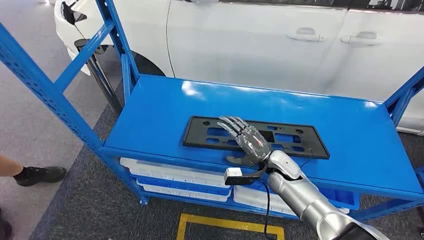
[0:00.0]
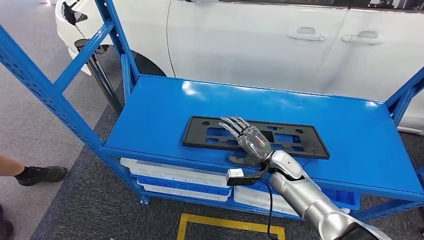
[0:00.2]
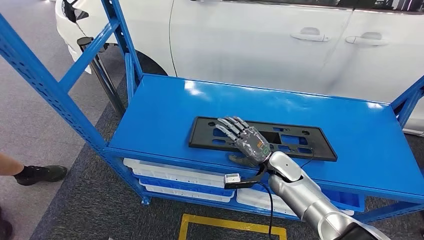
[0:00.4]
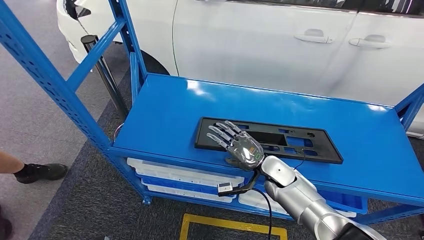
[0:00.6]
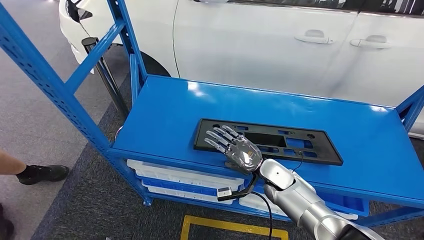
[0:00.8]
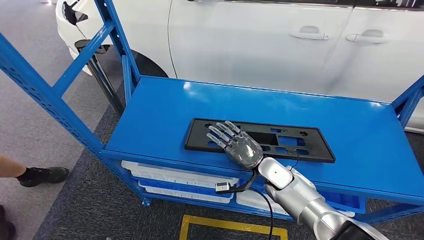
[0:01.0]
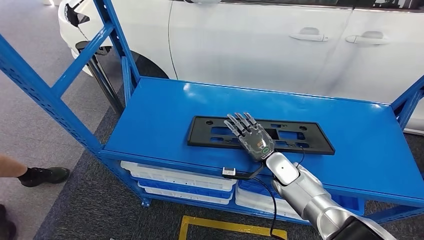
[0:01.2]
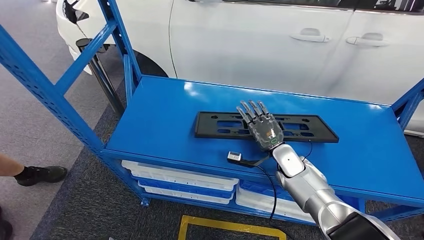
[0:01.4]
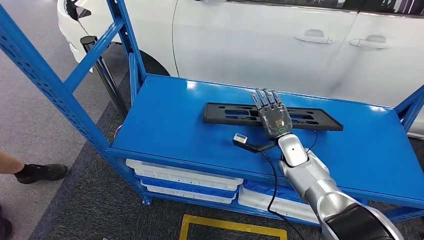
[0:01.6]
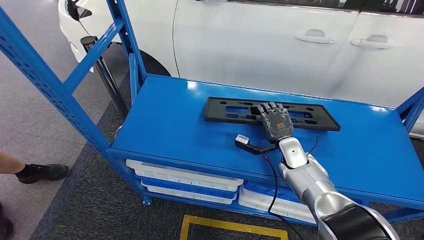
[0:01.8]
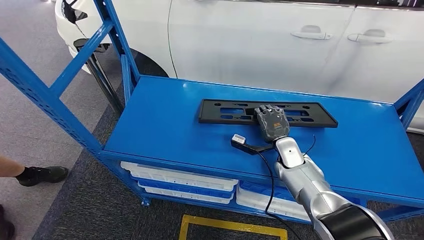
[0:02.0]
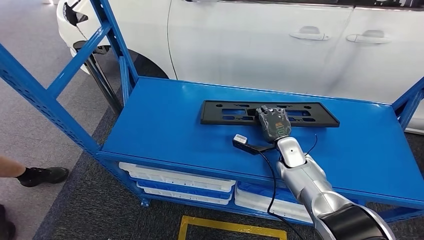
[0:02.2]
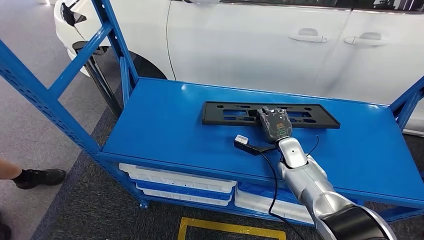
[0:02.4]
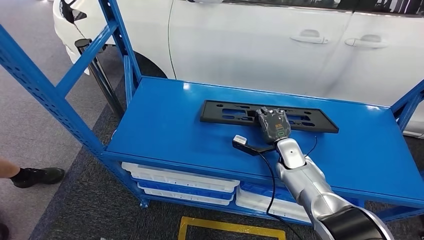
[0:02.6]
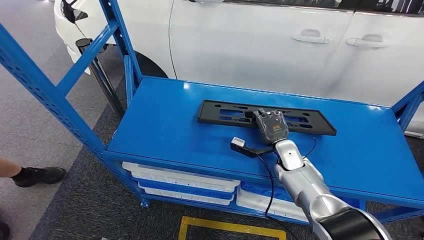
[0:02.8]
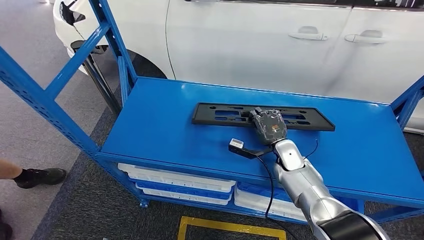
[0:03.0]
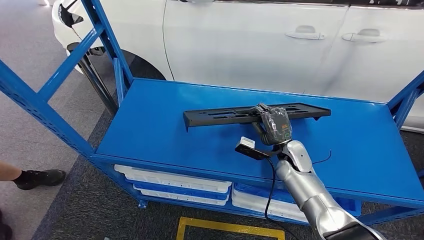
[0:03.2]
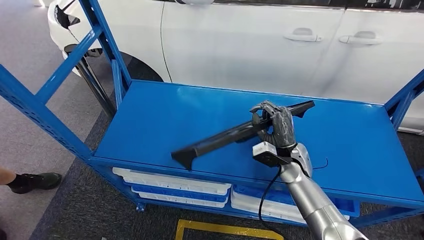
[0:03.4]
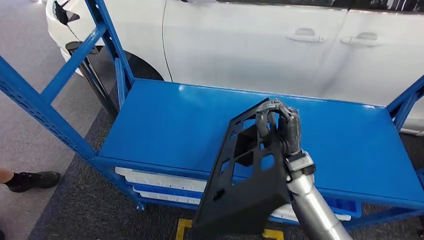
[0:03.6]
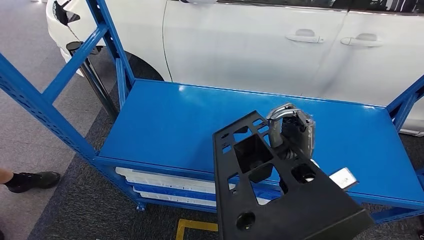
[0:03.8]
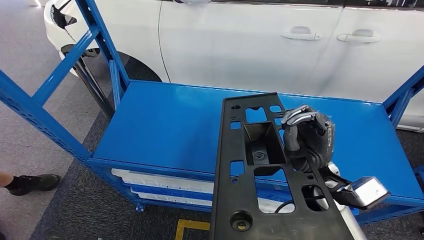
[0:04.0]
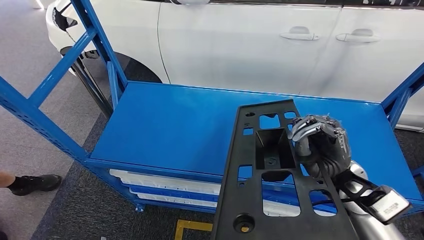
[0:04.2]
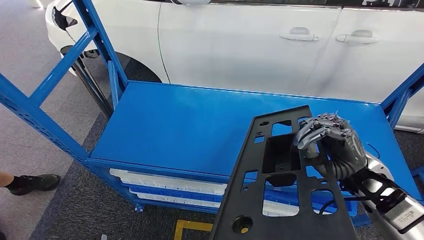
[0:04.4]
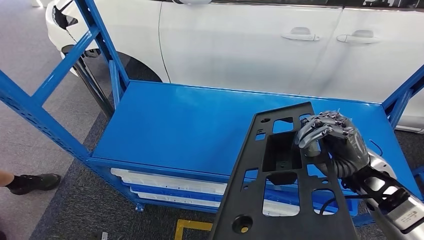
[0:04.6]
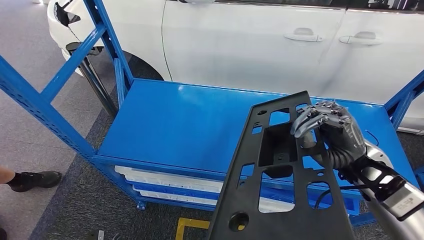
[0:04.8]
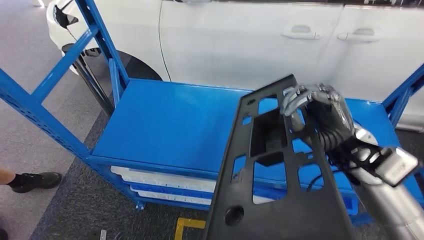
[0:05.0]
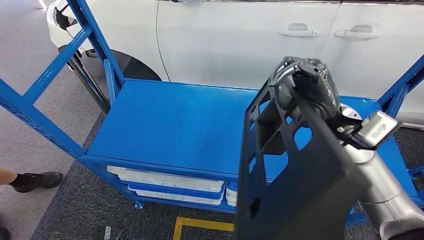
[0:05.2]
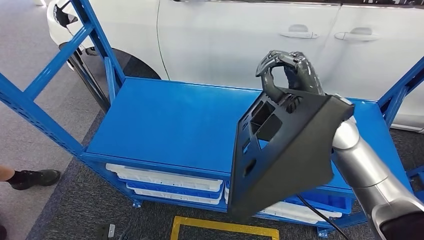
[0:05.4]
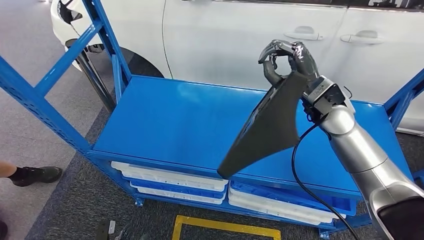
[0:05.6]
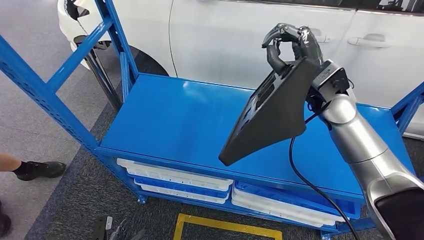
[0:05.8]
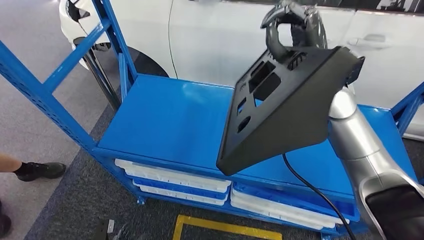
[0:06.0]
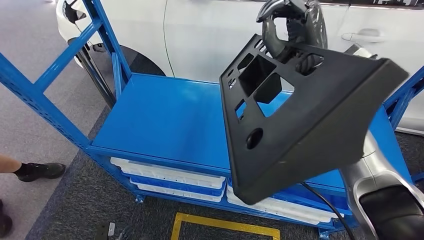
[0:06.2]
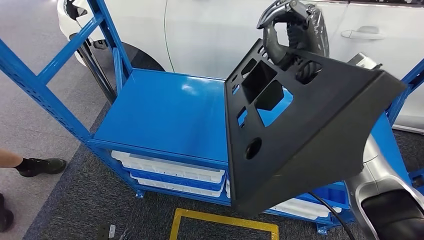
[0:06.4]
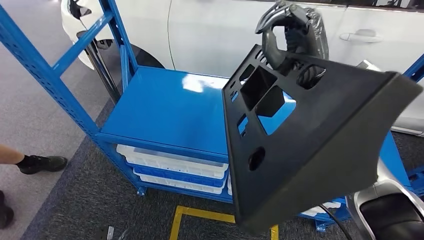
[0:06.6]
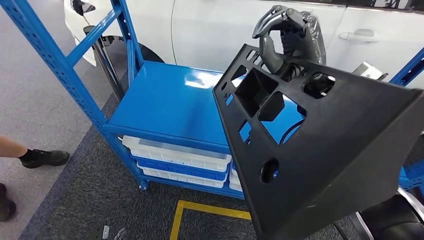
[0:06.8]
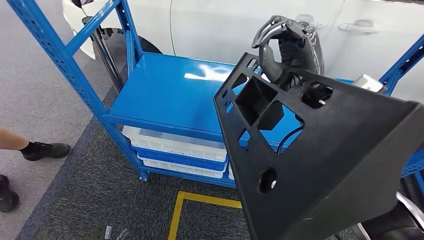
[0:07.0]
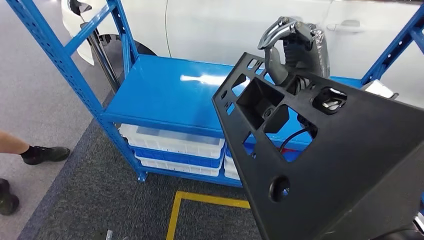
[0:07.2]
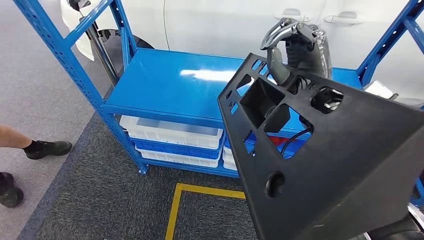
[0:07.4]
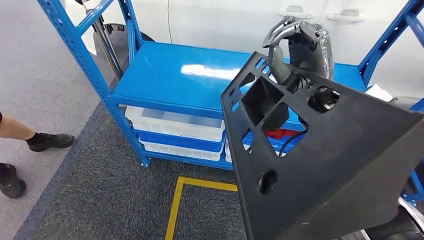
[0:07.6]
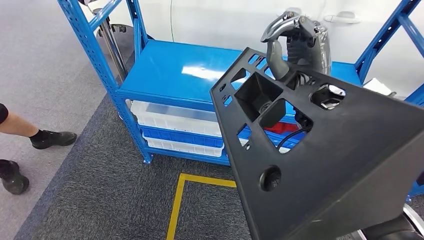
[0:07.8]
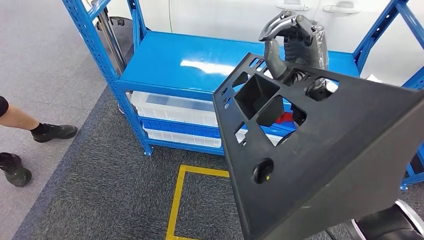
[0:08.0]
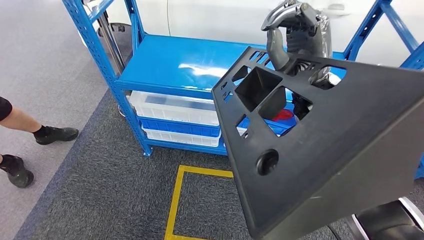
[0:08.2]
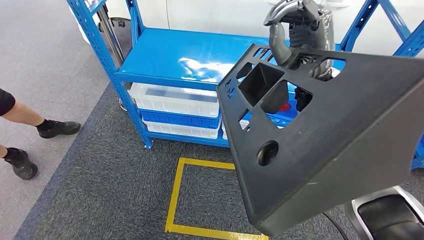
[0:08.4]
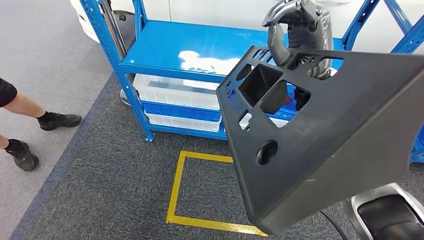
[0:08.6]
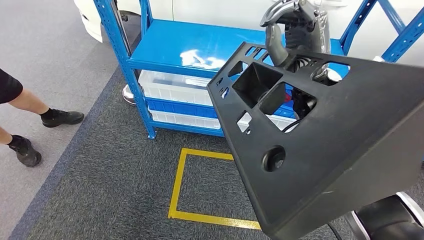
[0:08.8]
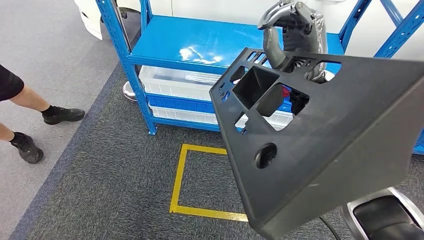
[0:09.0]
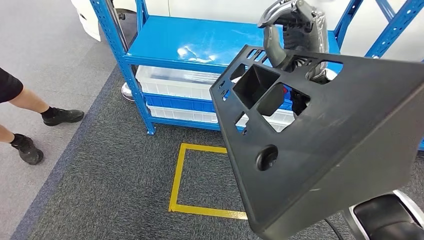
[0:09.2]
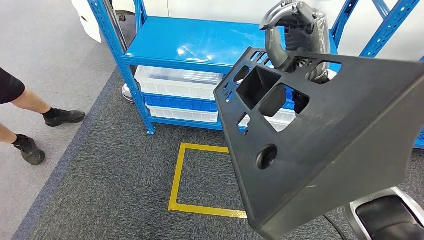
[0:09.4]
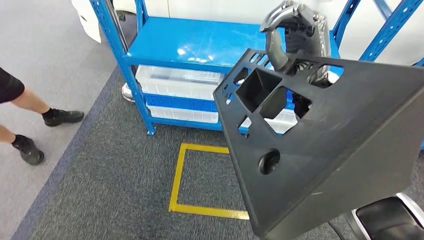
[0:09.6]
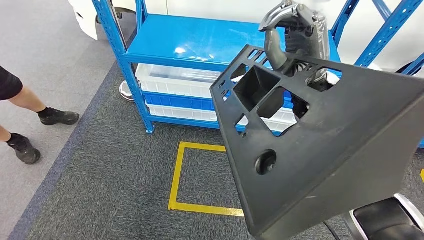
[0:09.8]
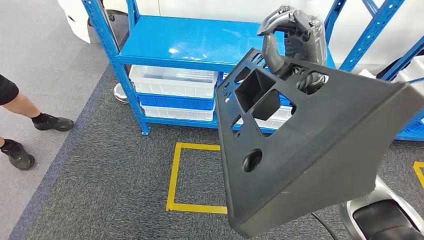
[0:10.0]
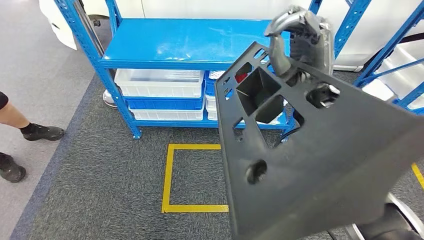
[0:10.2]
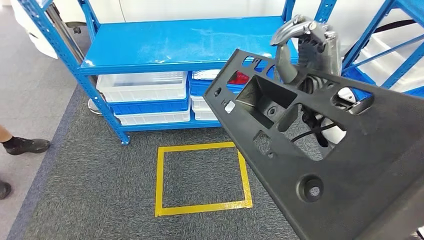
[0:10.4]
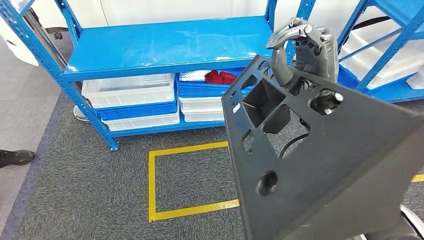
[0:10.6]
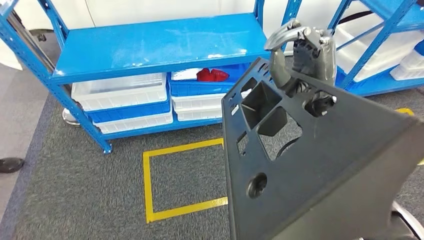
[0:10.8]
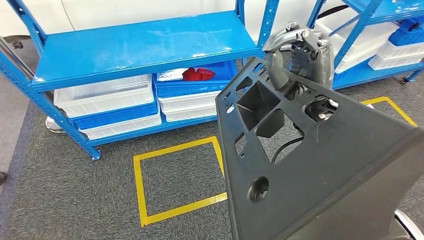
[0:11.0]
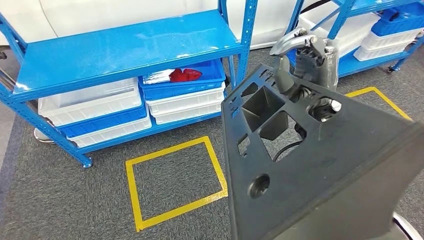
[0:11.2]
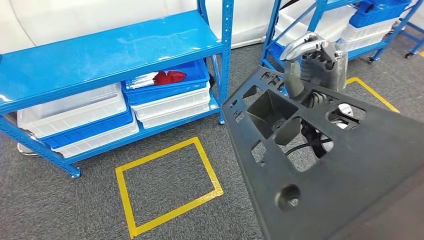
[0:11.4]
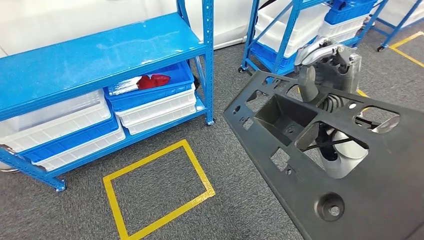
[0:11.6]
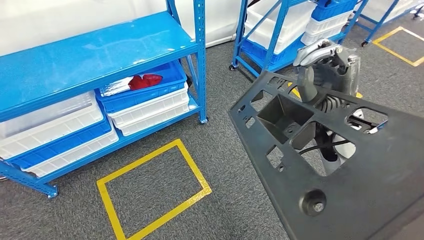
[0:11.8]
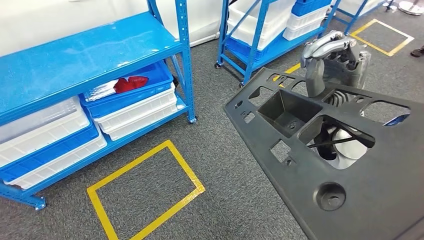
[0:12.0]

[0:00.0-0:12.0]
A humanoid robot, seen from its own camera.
Step, 0:00.0 to 0:06.0: Pick up the large material from the shelf.

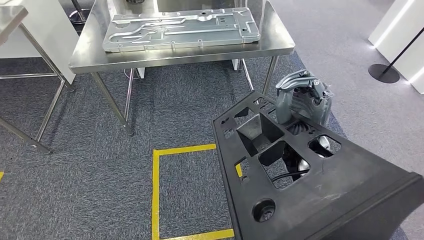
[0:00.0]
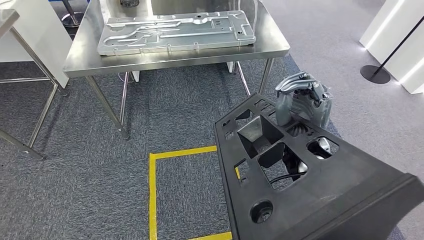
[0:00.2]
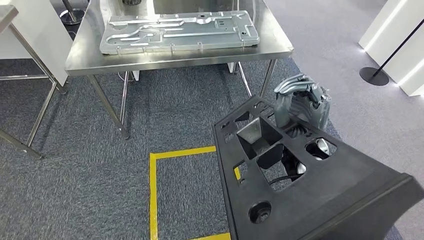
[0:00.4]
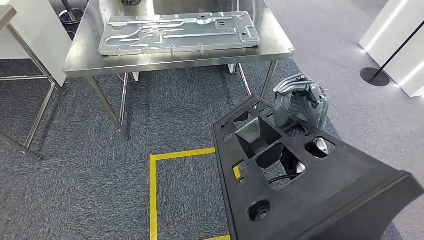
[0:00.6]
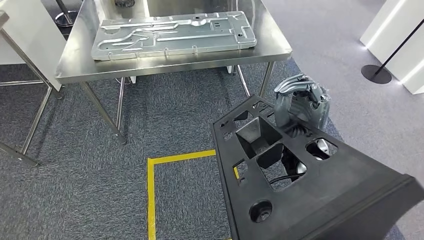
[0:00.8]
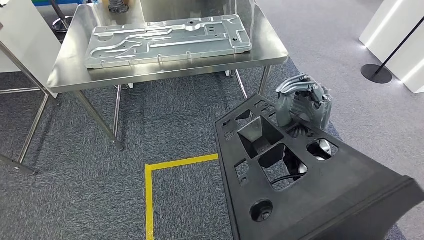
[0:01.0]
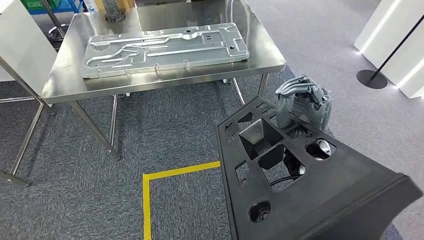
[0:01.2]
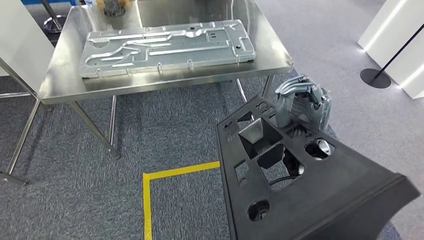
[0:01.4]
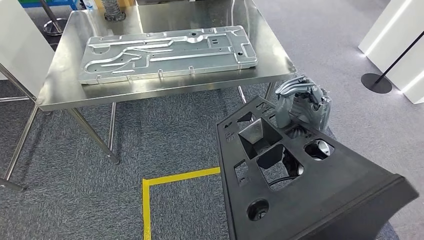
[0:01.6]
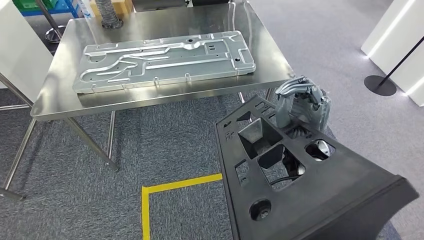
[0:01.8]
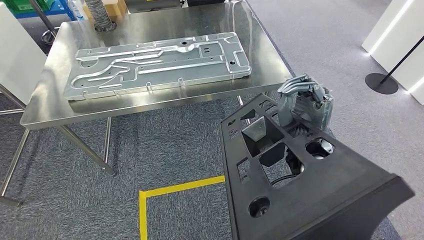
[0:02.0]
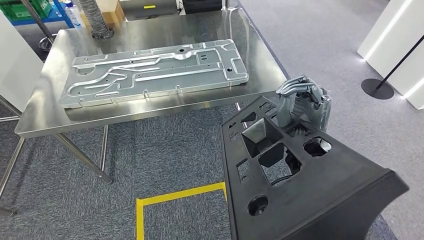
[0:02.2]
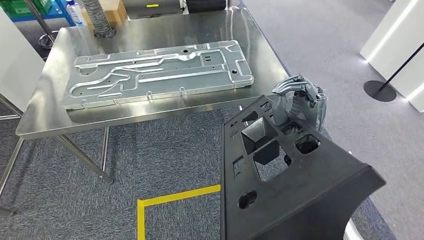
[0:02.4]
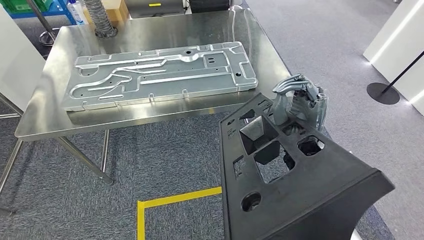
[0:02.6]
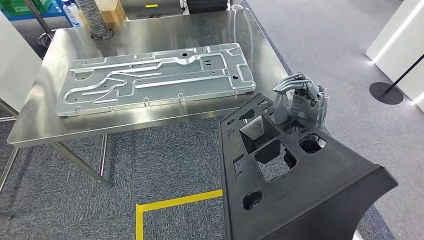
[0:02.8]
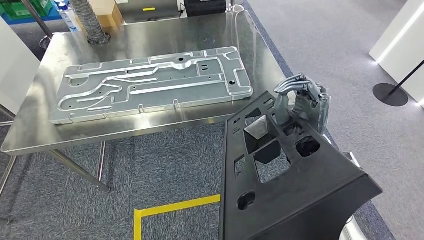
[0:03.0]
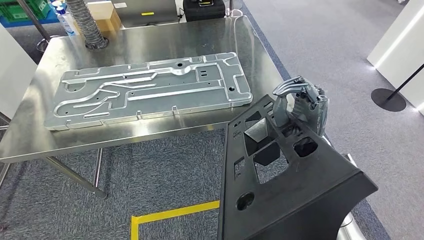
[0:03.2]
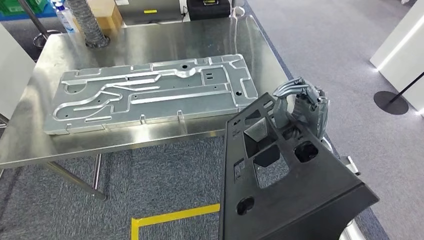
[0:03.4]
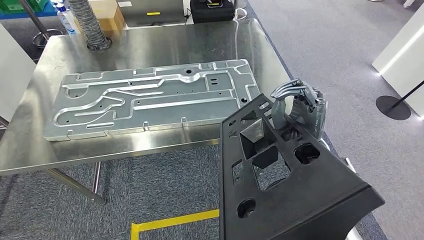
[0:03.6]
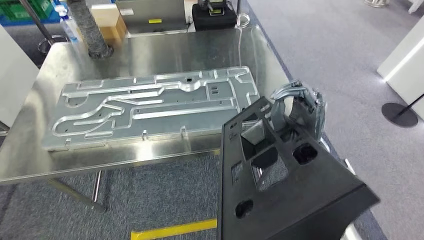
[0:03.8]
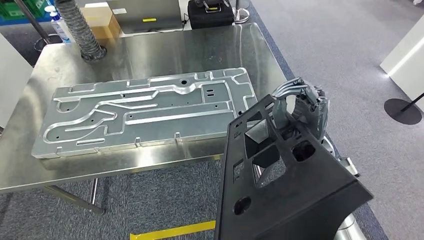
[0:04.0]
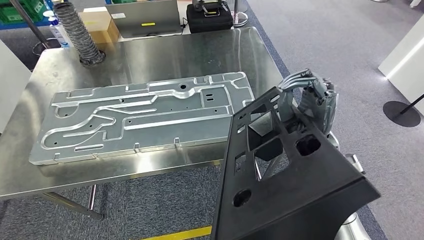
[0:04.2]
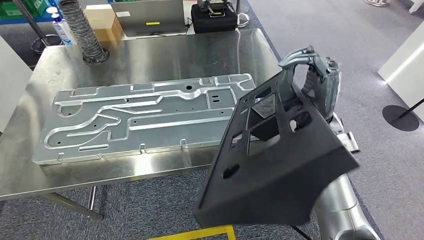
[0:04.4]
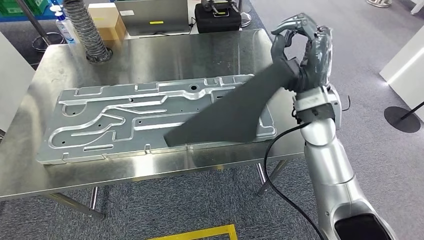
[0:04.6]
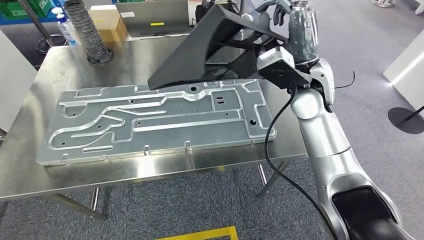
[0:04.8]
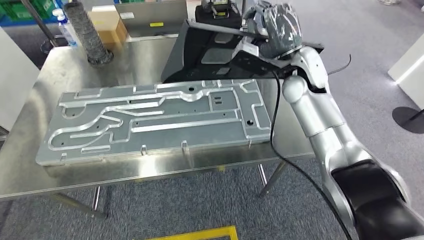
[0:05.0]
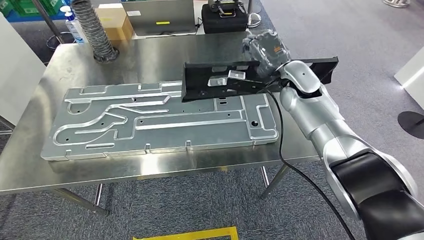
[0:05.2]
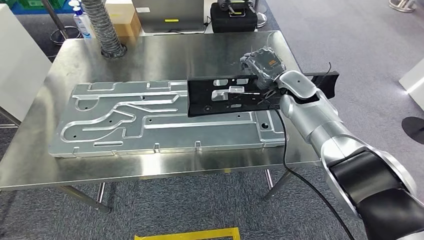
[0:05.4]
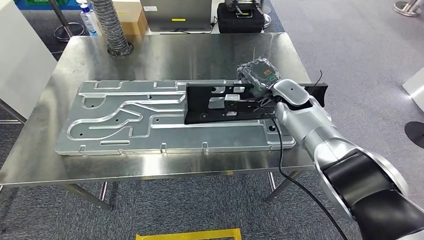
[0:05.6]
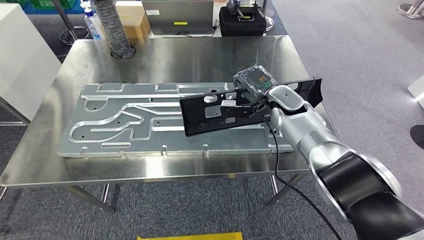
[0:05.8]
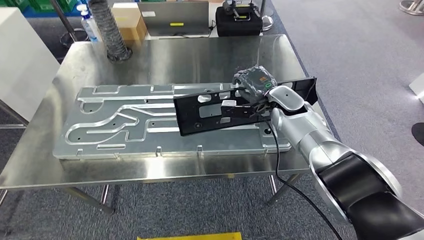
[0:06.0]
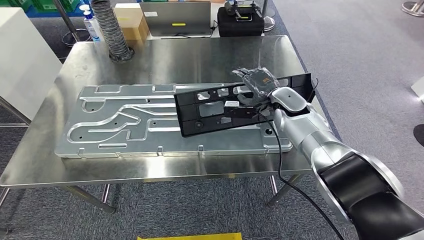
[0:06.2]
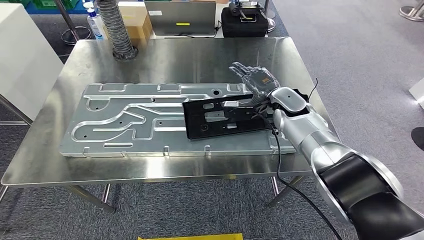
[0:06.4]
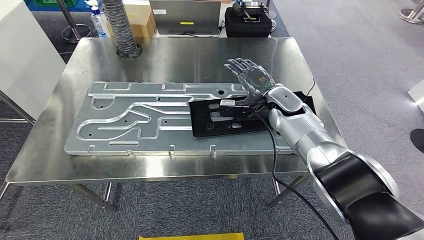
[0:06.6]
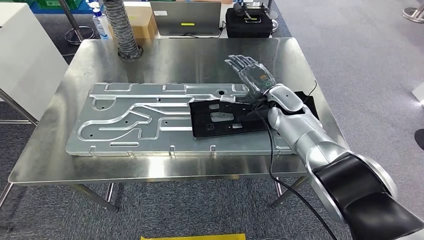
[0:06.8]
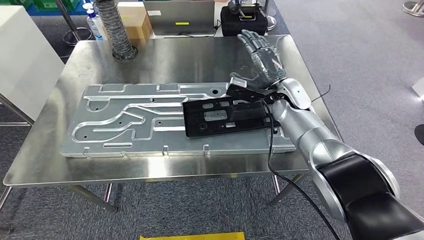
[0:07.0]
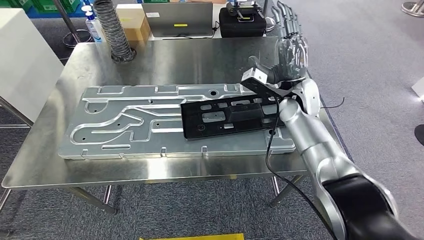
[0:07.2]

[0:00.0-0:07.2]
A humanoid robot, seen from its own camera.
Step, 0:00.0 to 0:04.0: Move the large material to the workbench.
